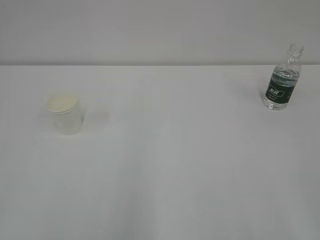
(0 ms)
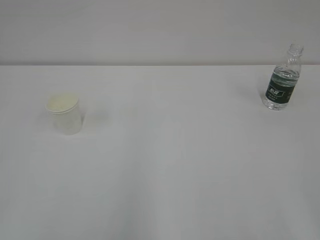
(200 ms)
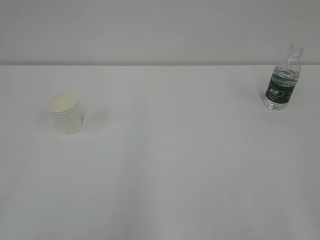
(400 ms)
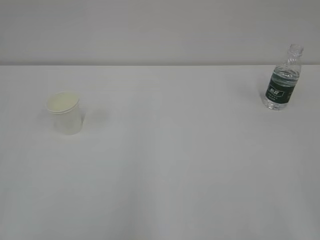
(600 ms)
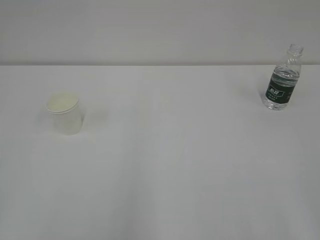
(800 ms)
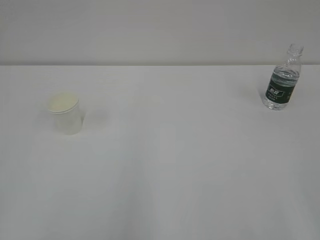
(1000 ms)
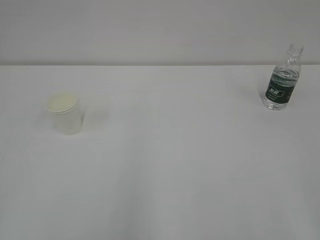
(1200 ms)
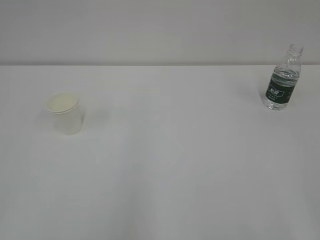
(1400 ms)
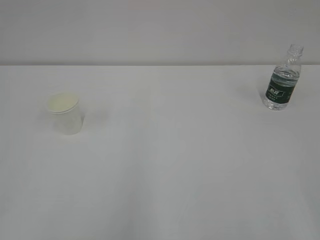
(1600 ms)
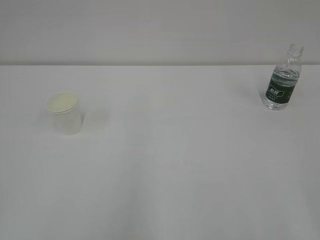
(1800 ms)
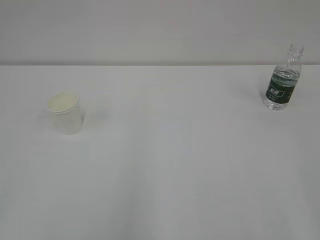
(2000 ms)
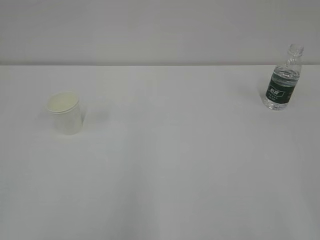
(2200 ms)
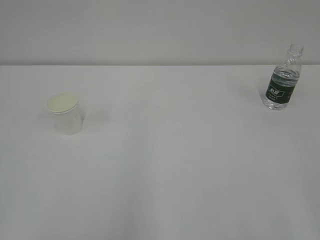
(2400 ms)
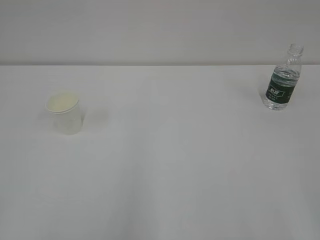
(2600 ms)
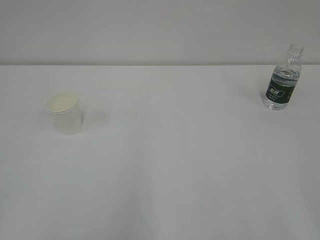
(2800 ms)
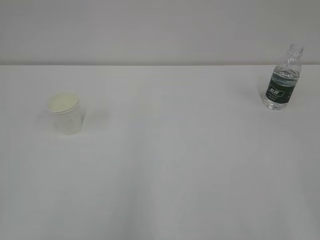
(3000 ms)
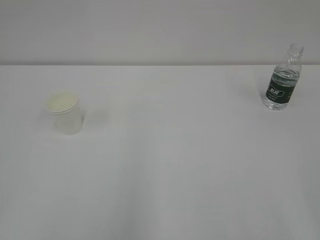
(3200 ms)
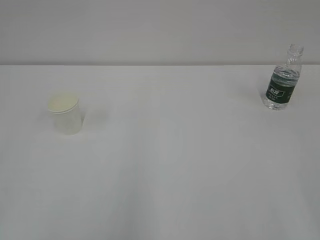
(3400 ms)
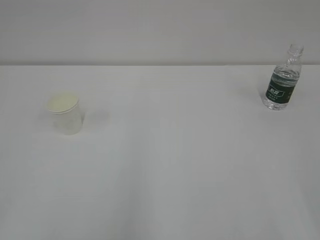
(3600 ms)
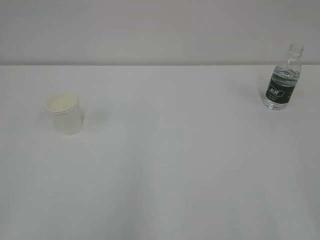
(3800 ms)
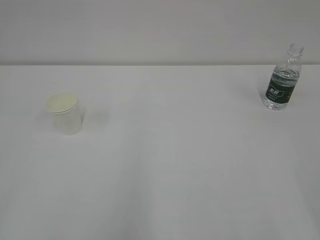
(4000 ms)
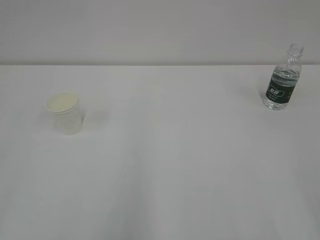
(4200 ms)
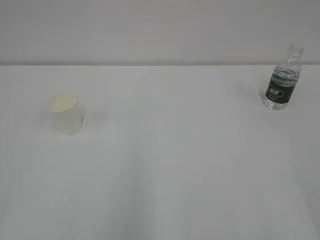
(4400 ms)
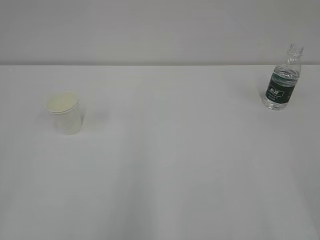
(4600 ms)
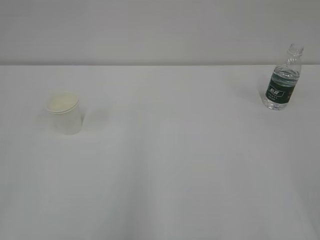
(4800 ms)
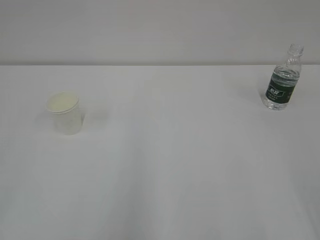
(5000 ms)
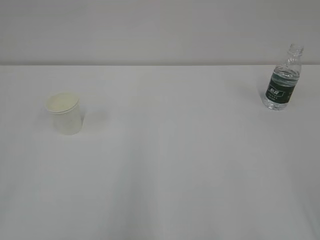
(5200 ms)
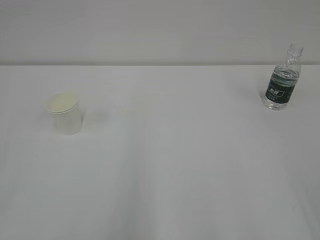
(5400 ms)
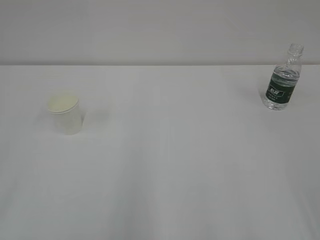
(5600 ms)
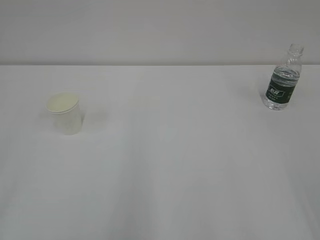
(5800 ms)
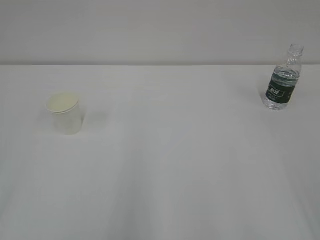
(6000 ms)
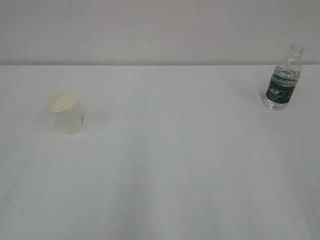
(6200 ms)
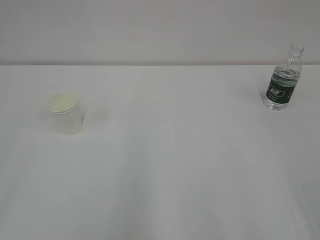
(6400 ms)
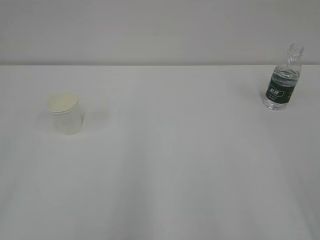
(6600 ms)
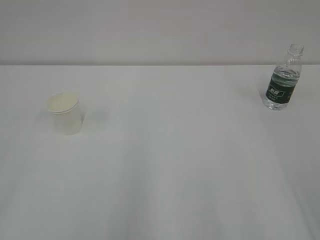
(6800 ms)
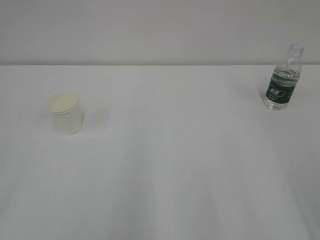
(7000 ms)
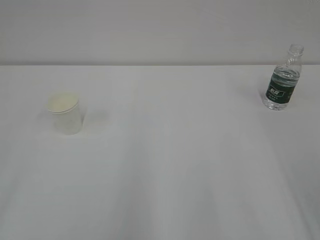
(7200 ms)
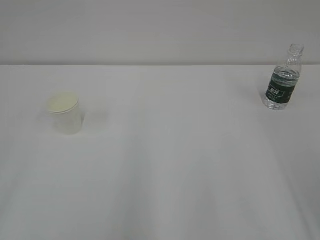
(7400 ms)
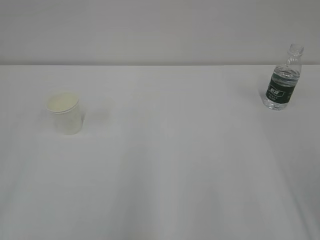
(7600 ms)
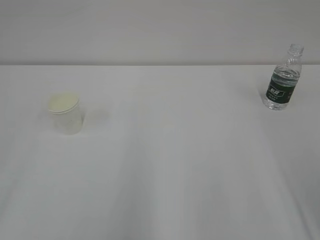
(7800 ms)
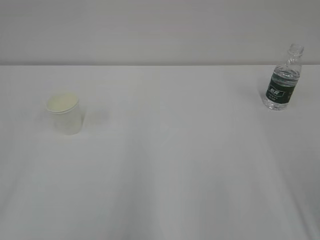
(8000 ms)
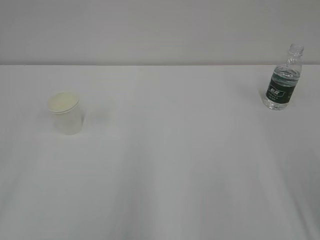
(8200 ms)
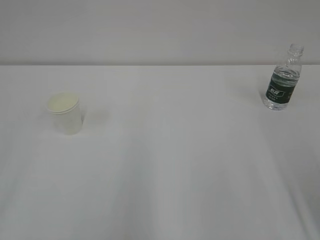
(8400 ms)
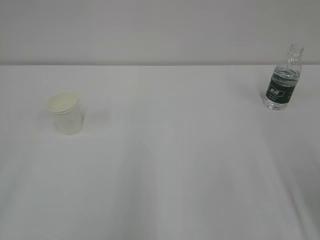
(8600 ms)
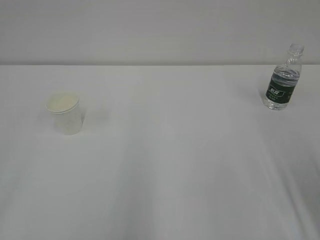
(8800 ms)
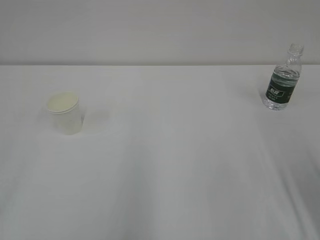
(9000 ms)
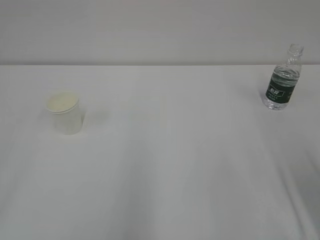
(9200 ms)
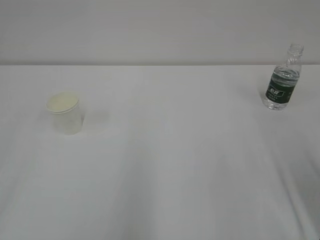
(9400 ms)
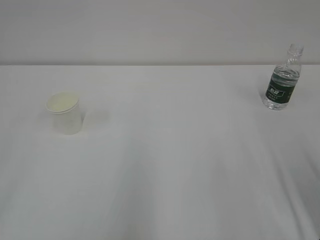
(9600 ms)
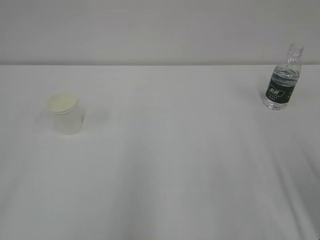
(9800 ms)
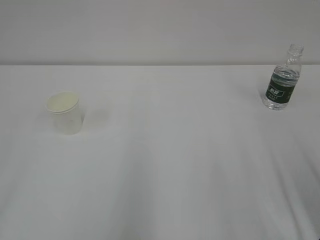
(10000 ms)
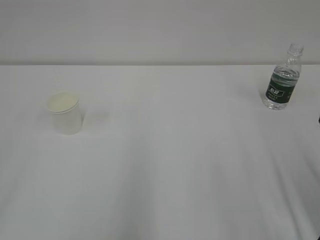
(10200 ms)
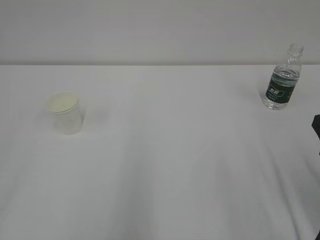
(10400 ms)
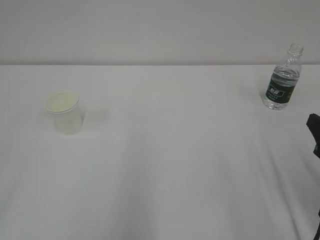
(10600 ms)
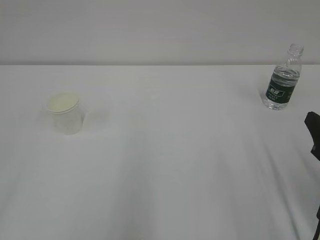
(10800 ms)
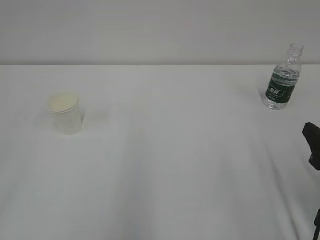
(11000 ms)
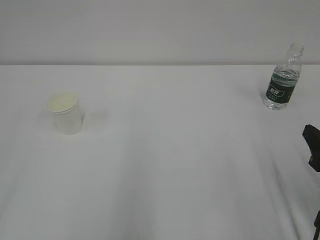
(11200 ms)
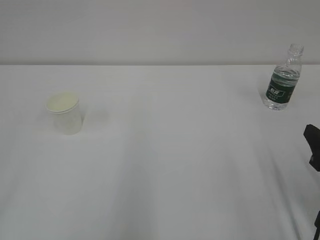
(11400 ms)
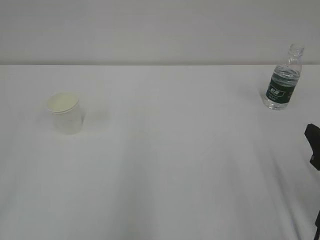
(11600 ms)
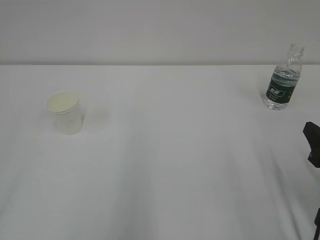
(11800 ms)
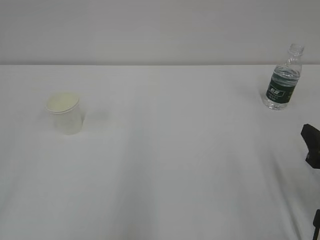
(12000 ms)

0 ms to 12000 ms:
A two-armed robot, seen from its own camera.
1600 ms to 3000 ms: Both grippers stay put.
10400 ms to 12000 ms: There are only small adjustments of the grippers.

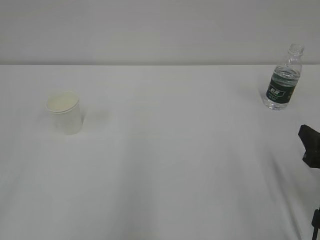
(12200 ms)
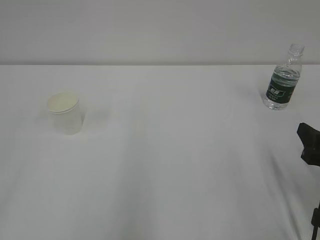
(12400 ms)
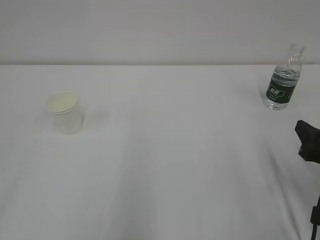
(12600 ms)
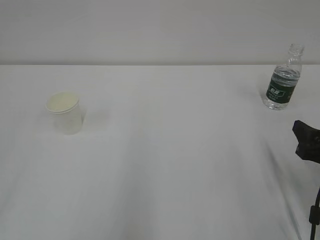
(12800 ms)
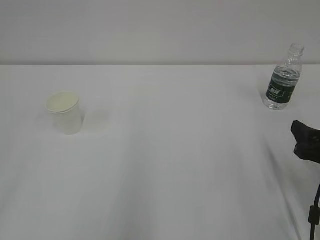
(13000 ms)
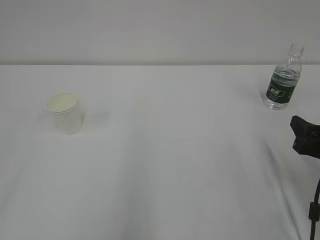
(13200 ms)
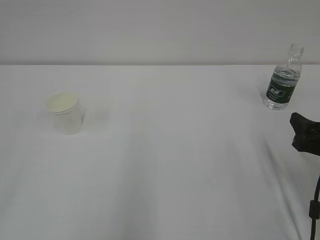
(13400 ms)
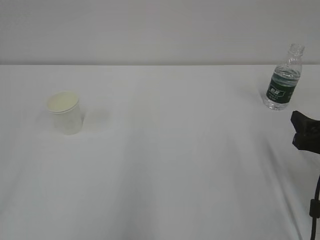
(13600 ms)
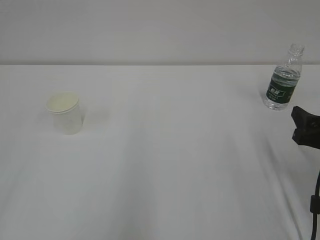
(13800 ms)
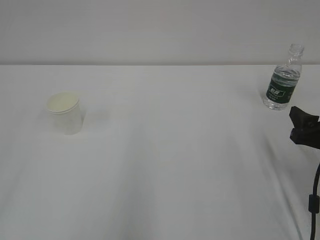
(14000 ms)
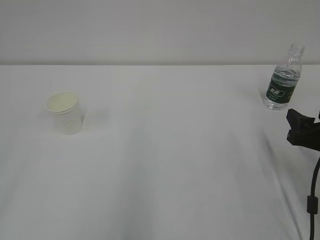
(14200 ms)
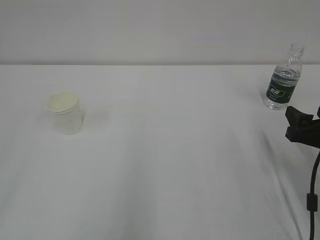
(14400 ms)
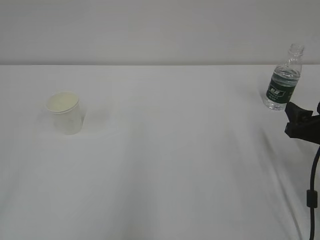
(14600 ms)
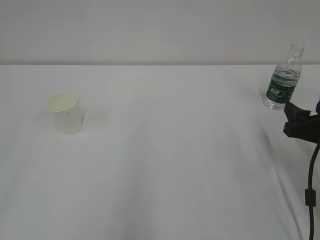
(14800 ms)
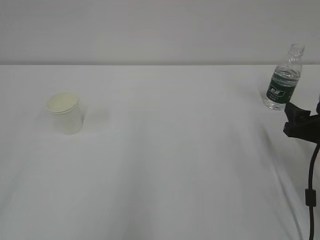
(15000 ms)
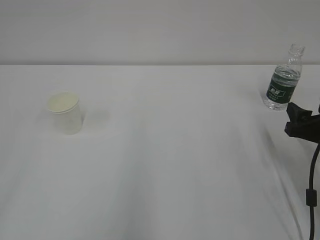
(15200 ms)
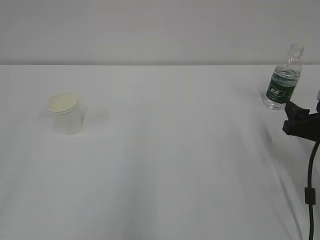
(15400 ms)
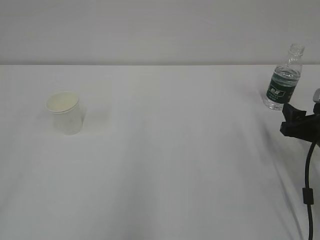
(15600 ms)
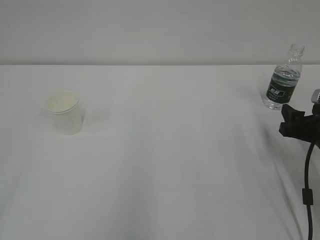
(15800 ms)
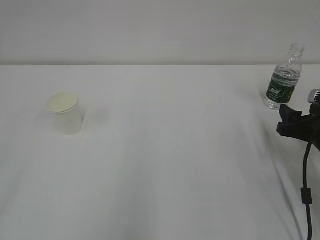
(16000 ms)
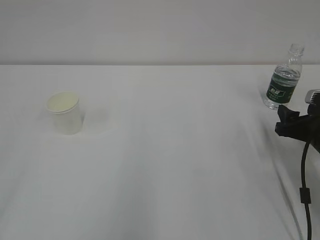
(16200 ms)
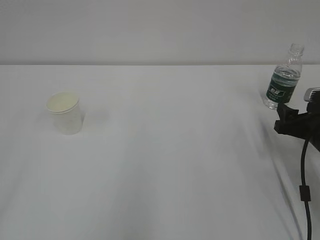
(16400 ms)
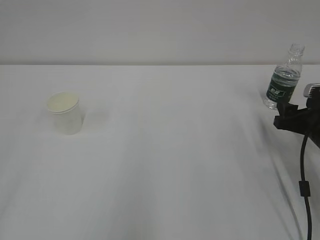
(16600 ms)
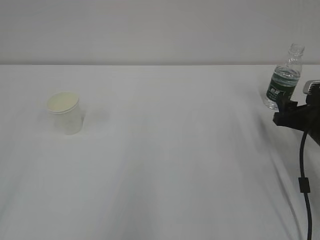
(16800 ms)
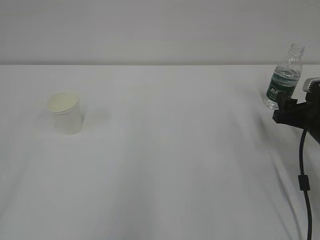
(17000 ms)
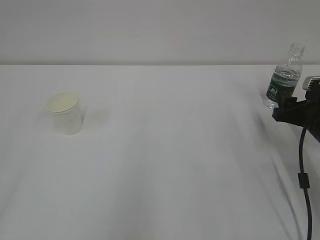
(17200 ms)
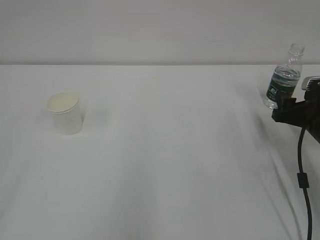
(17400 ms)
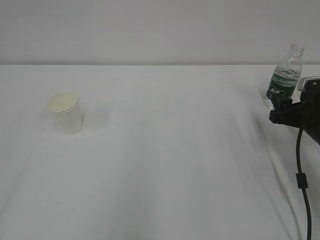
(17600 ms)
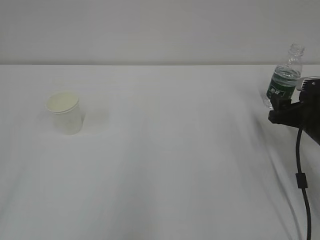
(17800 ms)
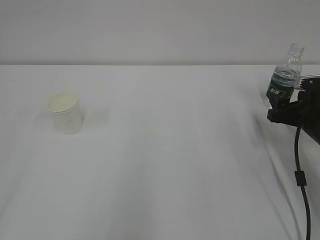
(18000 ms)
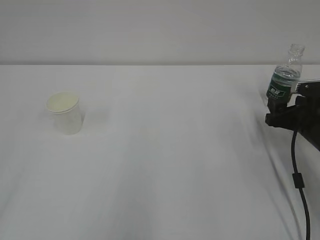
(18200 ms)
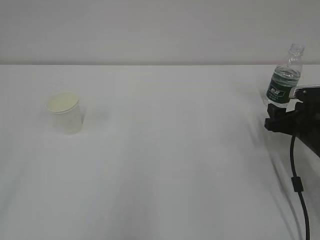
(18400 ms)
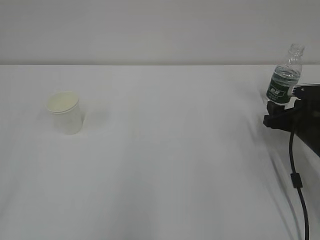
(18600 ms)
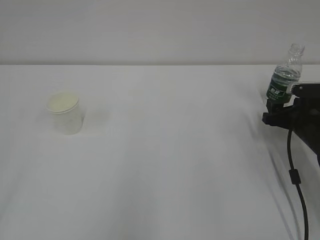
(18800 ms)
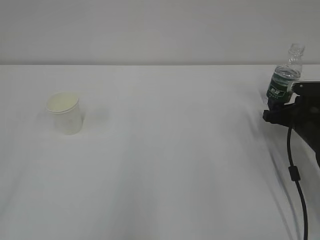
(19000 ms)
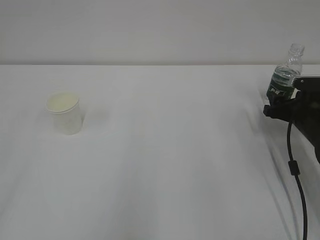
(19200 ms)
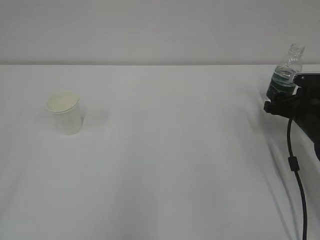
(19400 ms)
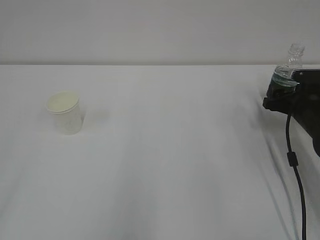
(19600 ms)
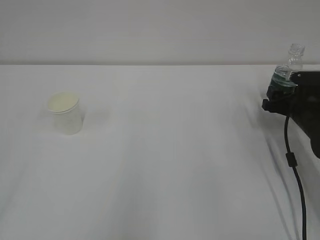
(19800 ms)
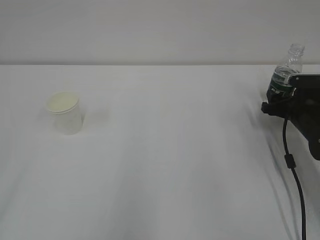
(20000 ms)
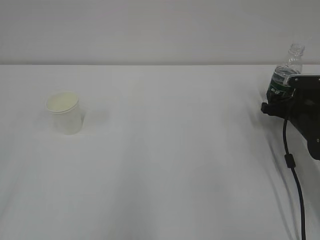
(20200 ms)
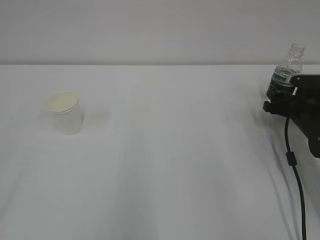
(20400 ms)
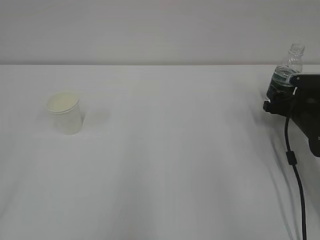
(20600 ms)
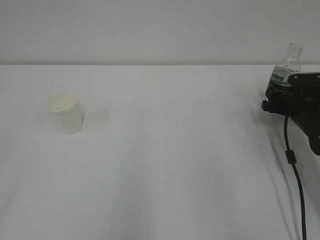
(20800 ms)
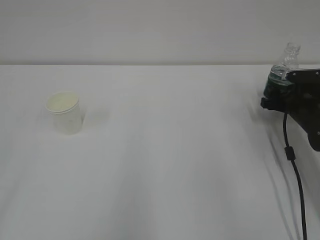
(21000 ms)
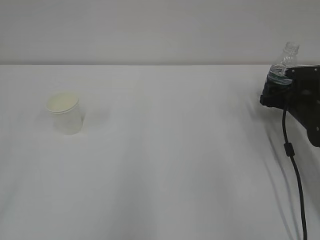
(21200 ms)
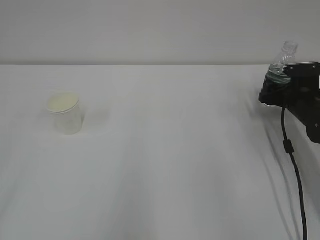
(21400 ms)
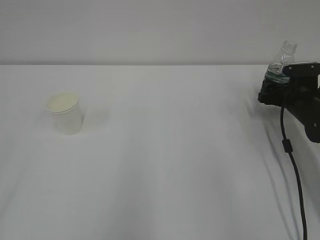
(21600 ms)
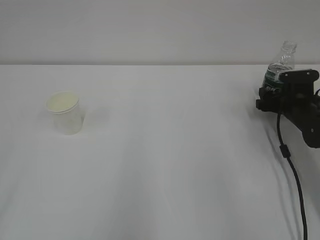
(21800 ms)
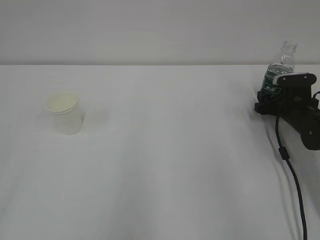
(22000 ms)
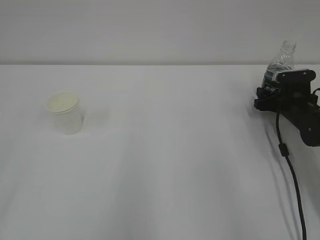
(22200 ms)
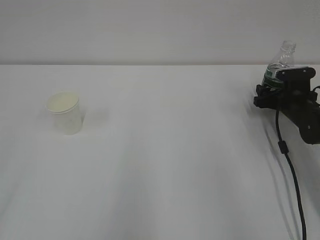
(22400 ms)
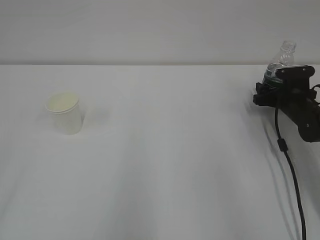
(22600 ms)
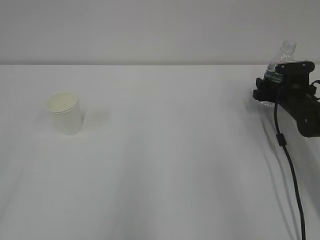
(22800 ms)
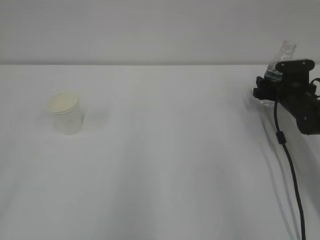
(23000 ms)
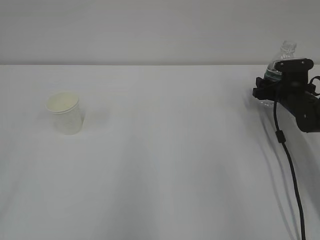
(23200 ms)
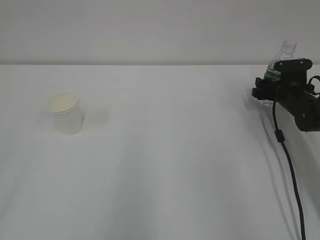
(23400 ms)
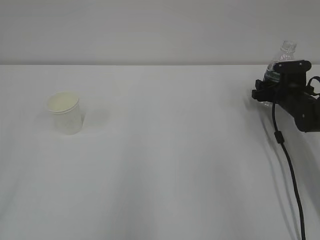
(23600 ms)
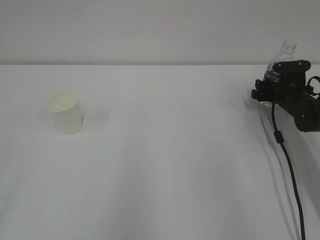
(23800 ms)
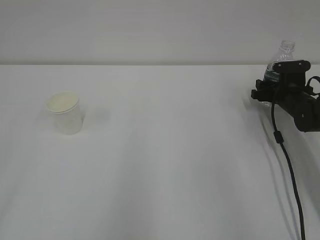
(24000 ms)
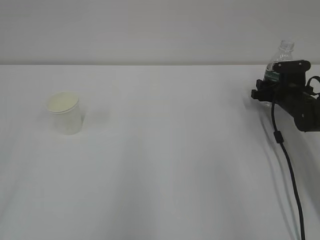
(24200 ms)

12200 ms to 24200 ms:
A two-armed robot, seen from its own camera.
12200 ms to 13800 ms: The grippers move only a little.
13800 ms to 15200 ms: The grippers move only a little.
15200 ms to 16600 ms: The grippers make only small movements.
16600 ms to 18200 ms: The grippers make only small movements.
18200 ms to 19800 ms: The right gripper is displaced forward by some 5 cm.
19800 ms to 21200 ms: The grippers make only small movements.
21200 ms to 22600 ms: There are only small adjustments of the grippers.
22600 ms to 24200 ms: The right gripper closes its fingers.
